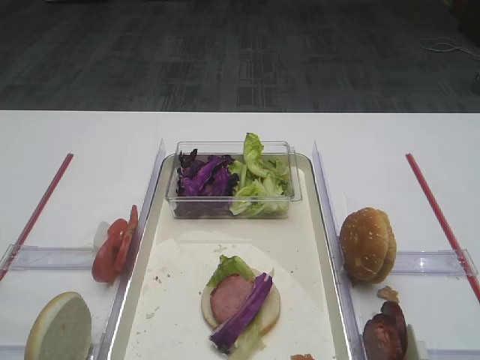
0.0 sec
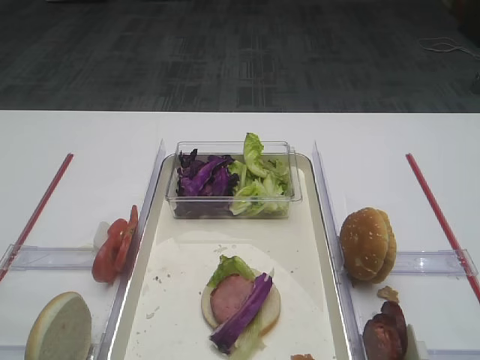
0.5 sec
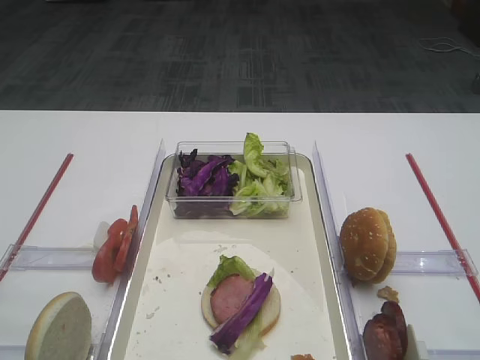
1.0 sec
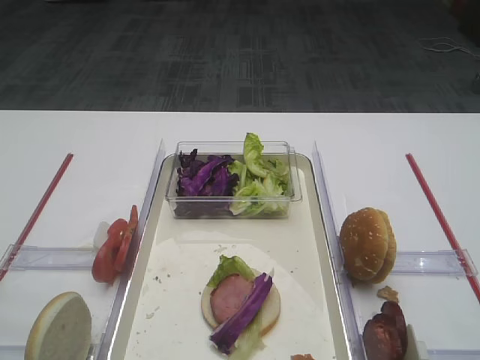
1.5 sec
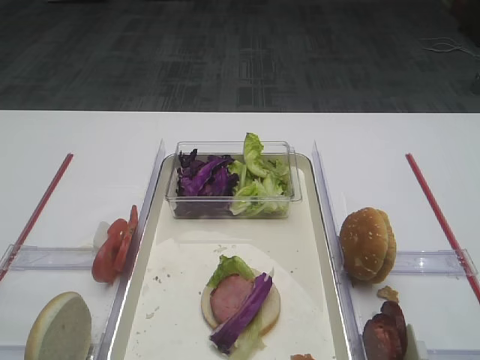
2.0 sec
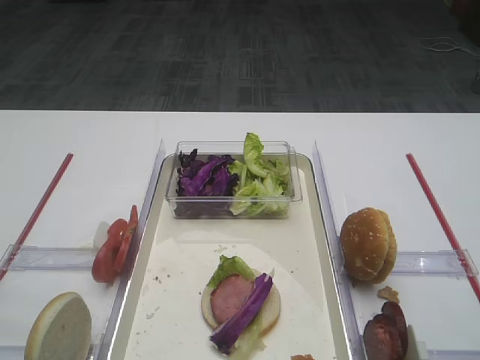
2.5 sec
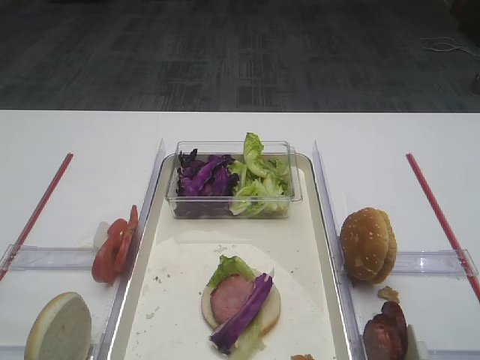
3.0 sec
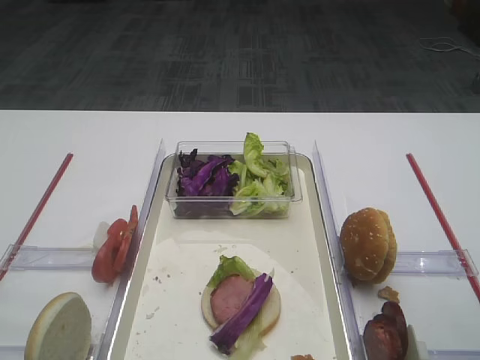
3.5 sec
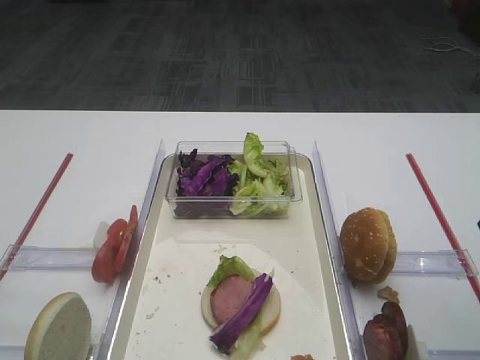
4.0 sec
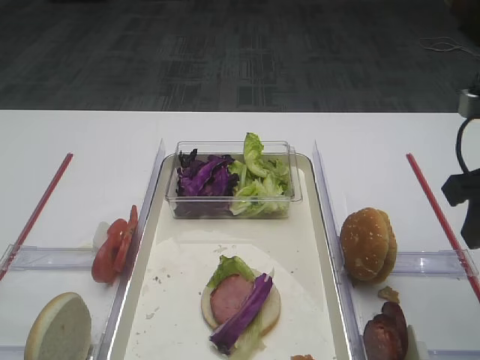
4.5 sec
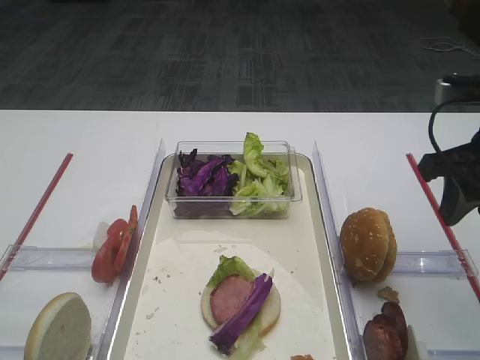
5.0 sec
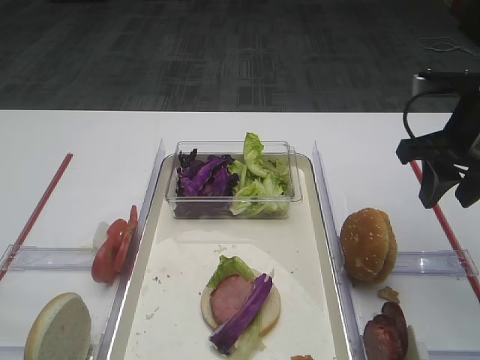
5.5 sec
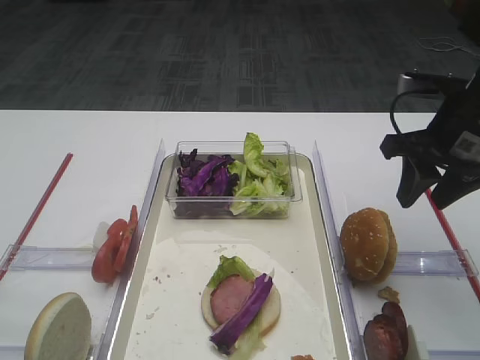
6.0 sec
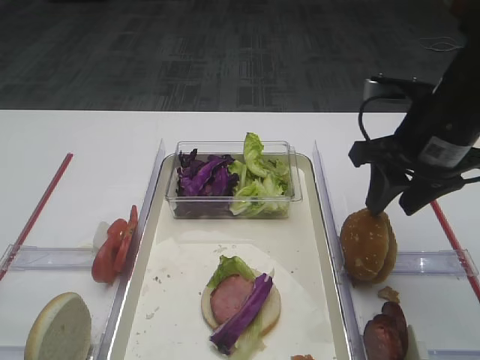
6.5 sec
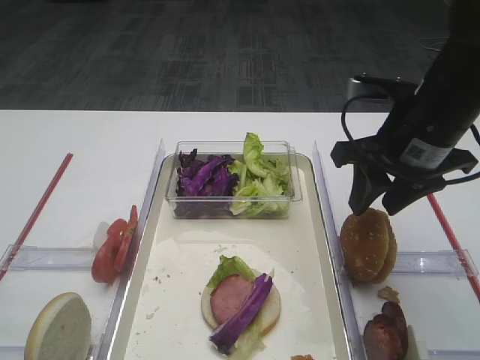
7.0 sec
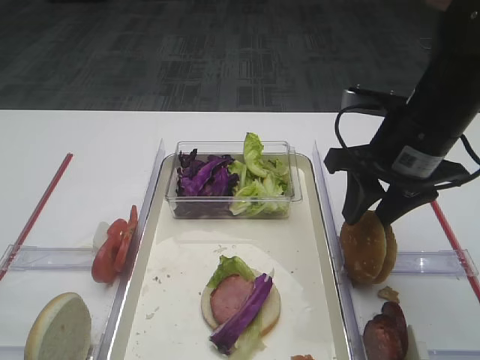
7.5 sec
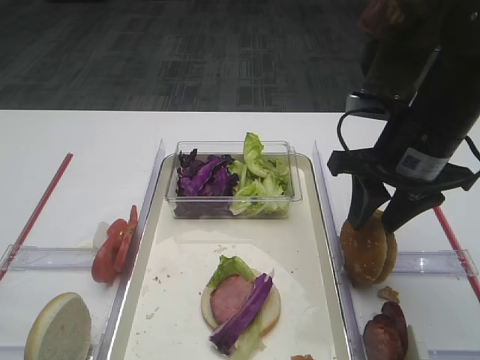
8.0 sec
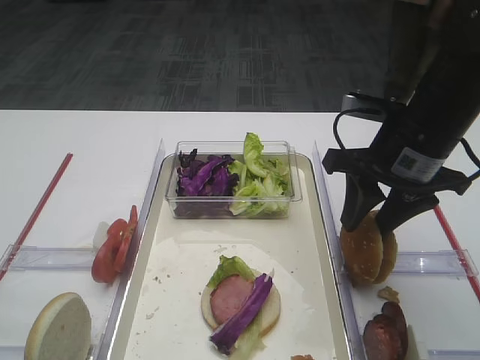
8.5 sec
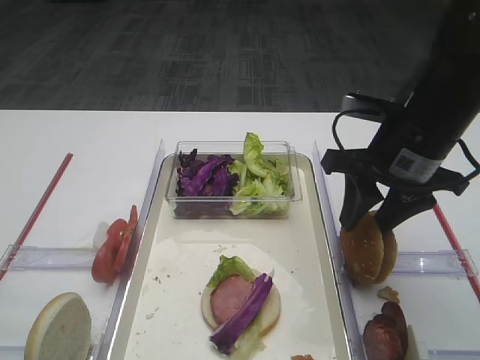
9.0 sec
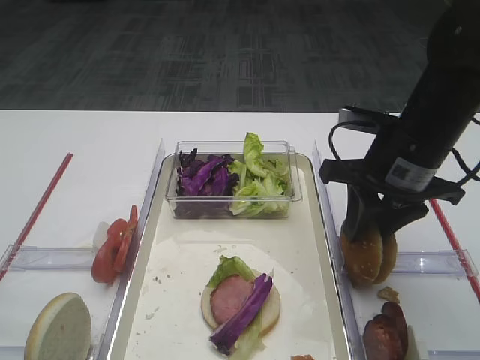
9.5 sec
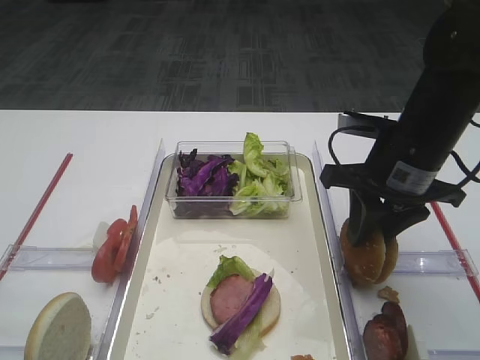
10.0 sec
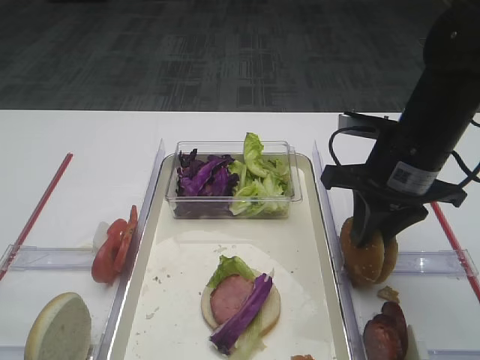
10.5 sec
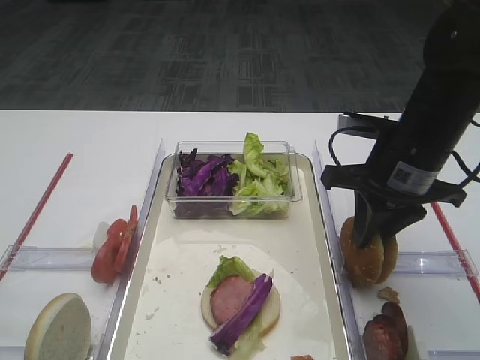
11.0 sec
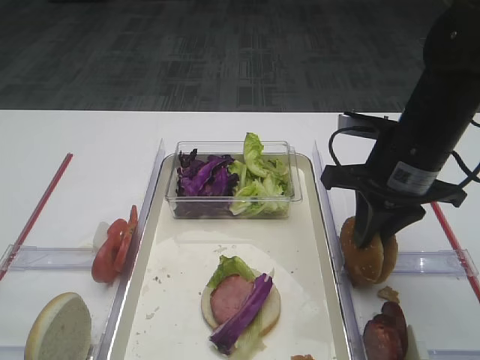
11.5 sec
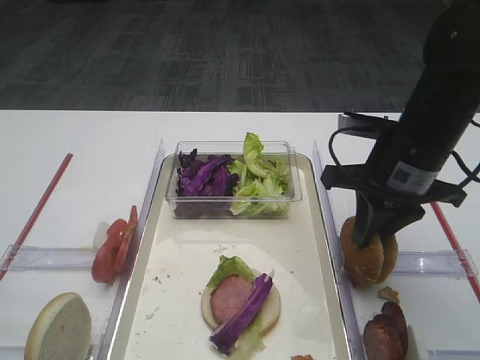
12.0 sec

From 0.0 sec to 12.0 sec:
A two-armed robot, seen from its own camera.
From 2.0 sec to 4.0 sec: The right gripper heads forward, covering approximately 15 cm.
From 4.0 sec to 6.0 sec: The right gripper heads forward, covering about 15 cm.
From 6.0 sec to 8.0 sec: The right gripper heads to the left, covering about 5 cm.
From 8.0 sec to 10.0 sec: The grippers move only a little.
From 10.0 sec to 12.0 sec: The right gripper closes.

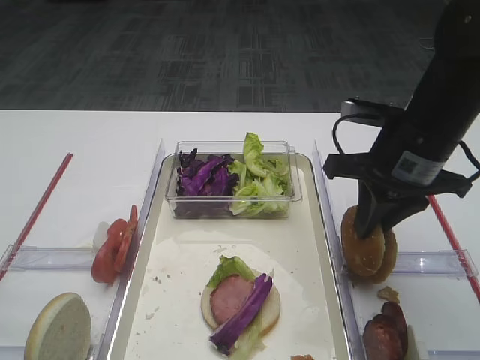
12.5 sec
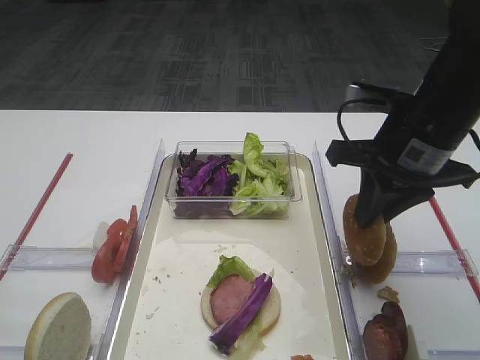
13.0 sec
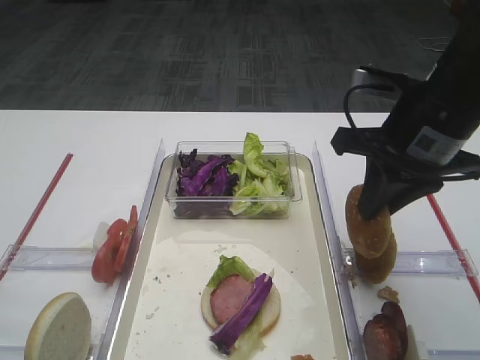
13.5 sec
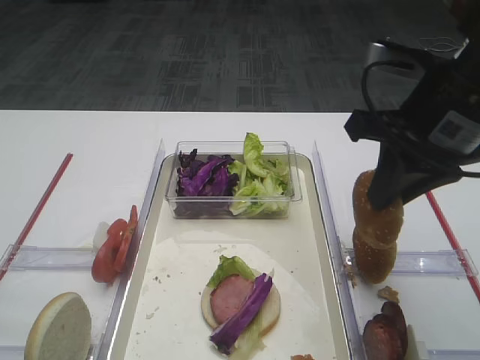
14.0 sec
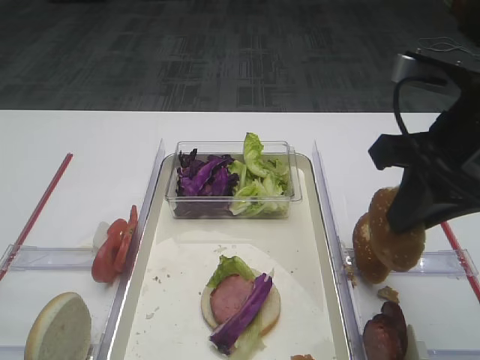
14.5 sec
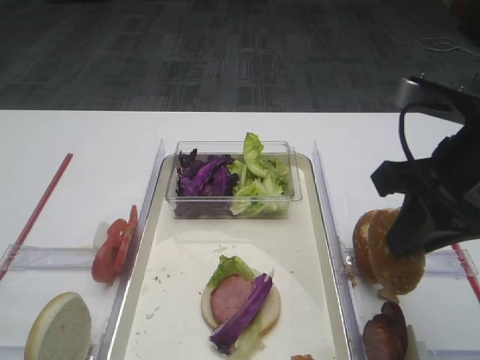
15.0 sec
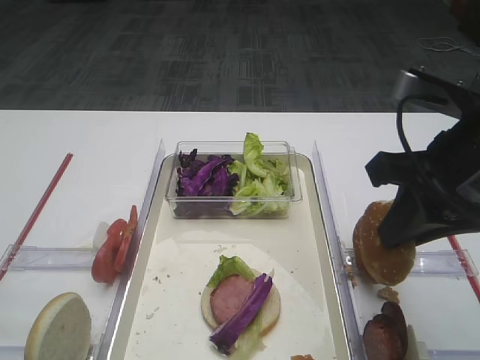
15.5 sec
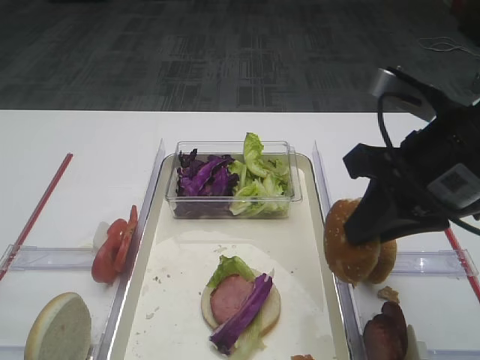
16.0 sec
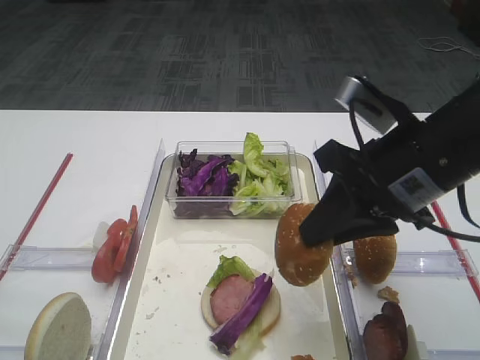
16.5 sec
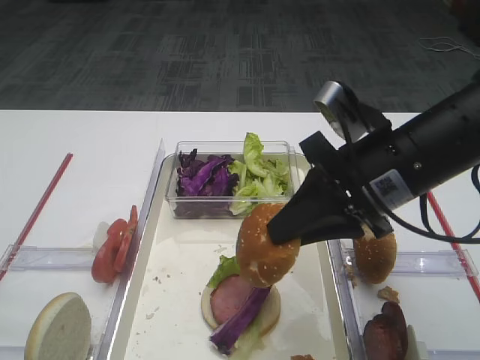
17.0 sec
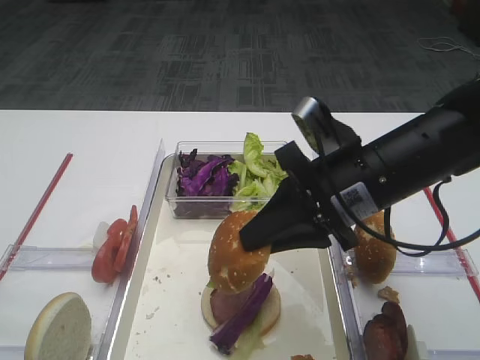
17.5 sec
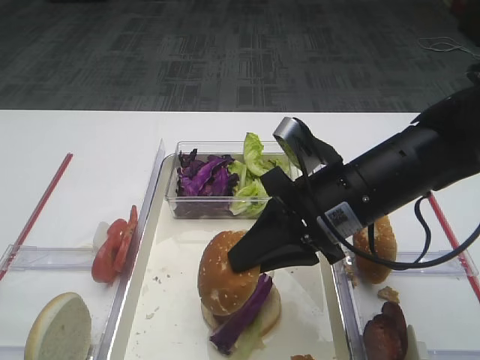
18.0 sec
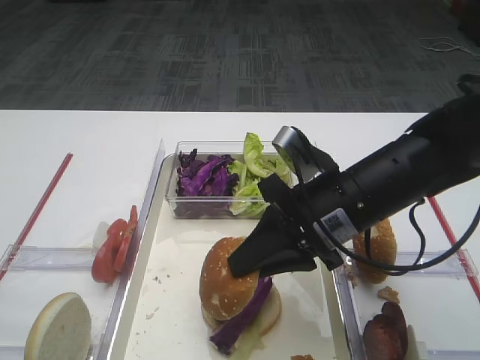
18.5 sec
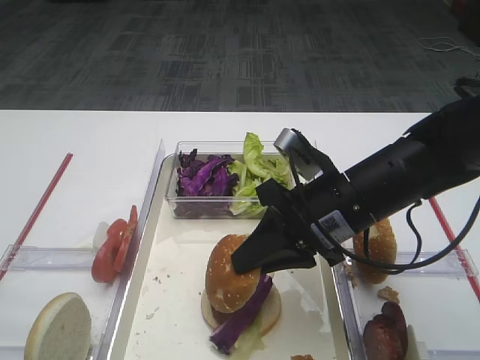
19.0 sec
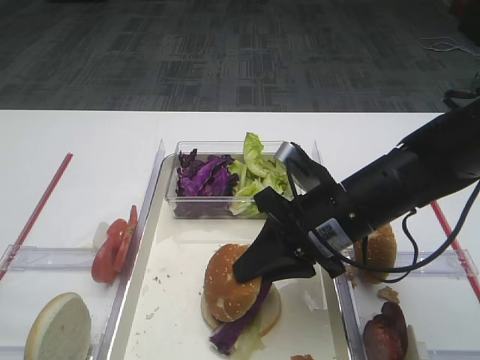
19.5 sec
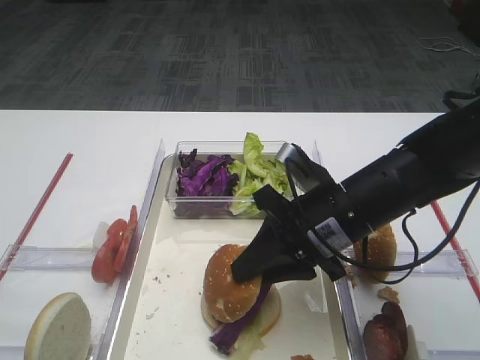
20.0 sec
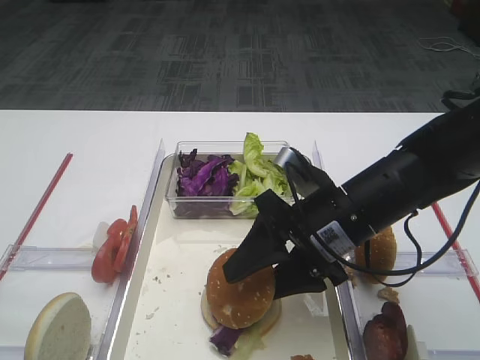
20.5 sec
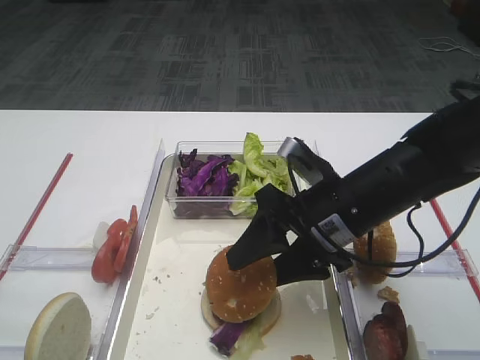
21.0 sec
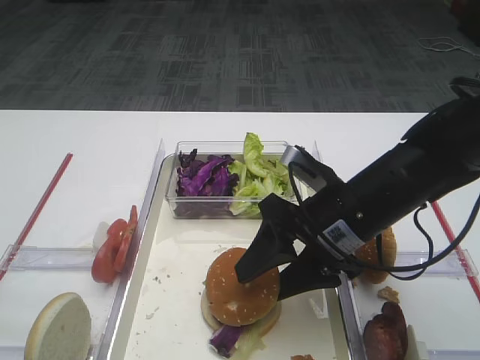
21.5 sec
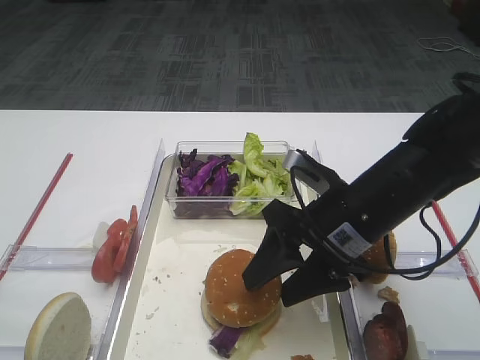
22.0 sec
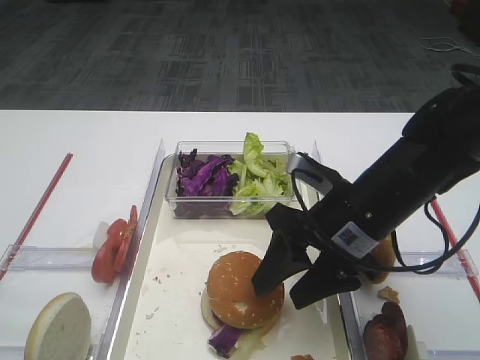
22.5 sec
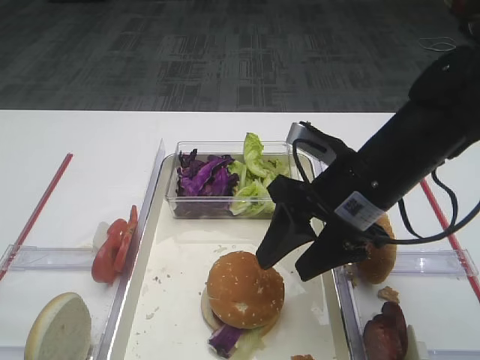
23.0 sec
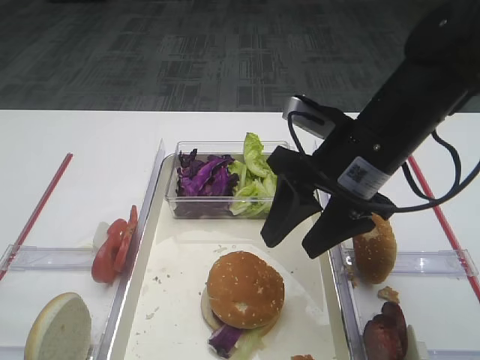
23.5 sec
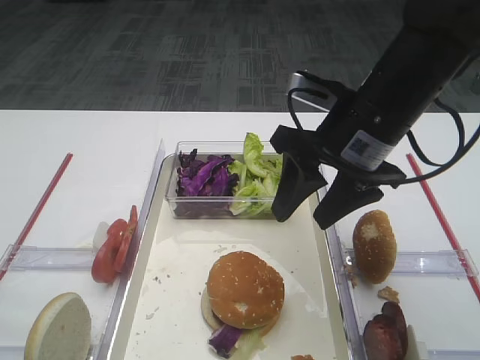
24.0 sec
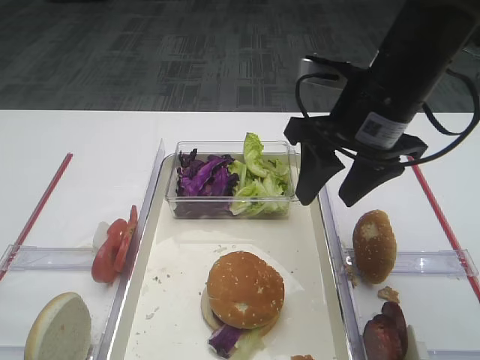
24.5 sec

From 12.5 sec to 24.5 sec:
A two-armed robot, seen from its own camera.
Step, from 14.0 sec to 23.5 sec: Place the hamburger lid on the purple cabbage with the right gripper.
From 12.5 sec to 14.5 sec: The right gripper shifts some 10 cm backward and upward.
From 14.5 sec to 16.5 sec: The right gripper changes place by roughly 5 cm.
From 16.5 sec to 18.5 sec: The right gripper is displaced downward and to the left by about 10 cm.
From 18.5 sec to 20.5 sec: The right gripper opens up.
From 20.5 sec to 22.5 sec: The grippers make only small movements.
From 22.5 sec to 24.5 sec: The right gripper goes roughly 10 cm upward.

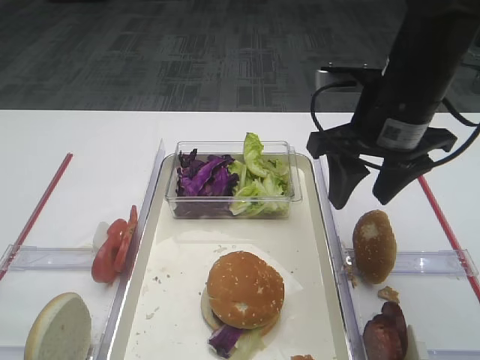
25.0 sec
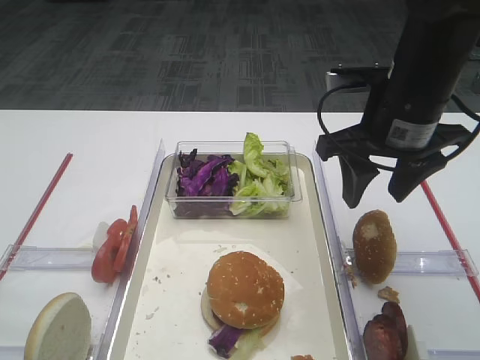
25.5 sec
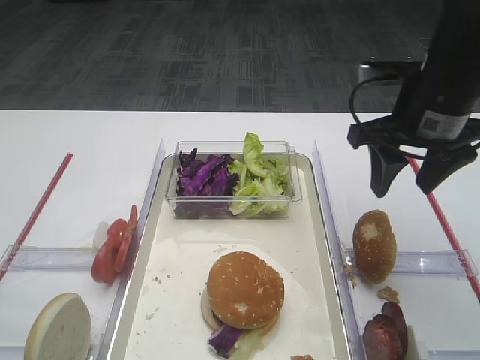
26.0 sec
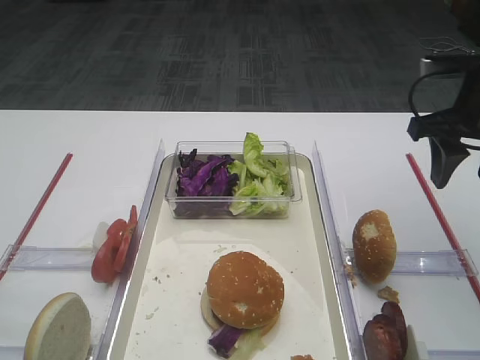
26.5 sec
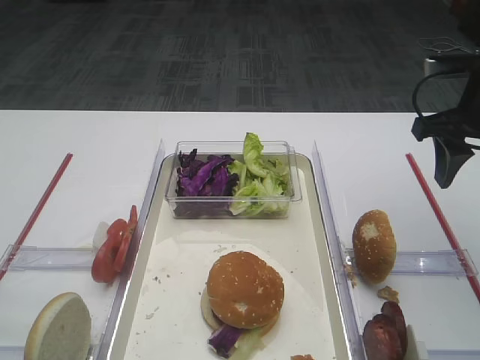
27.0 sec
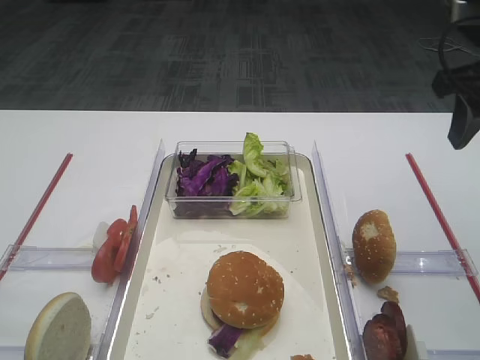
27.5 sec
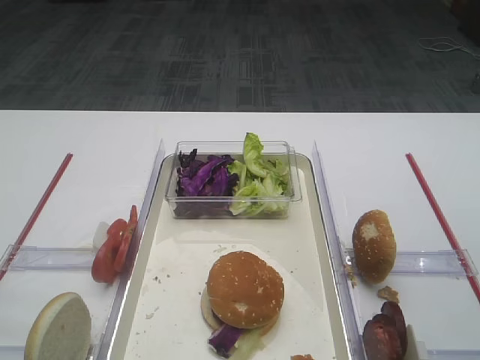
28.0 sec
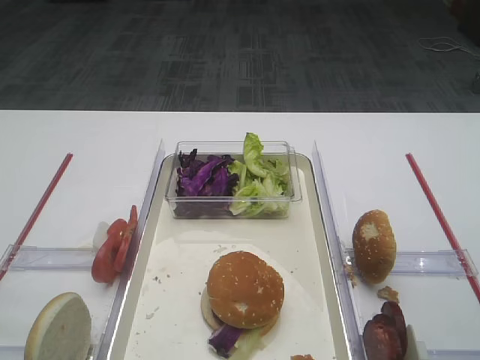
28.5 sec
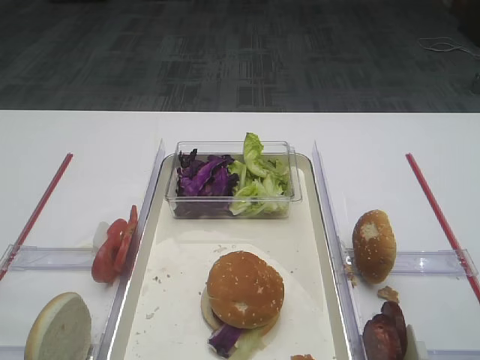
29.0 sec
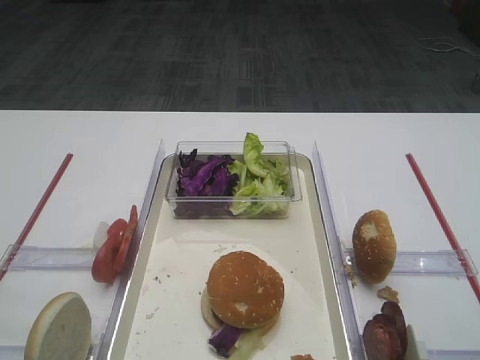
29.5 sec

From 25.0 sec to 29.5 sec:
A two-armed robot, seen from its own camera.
From 25.0 sec to 27.0 sec: The right gripper travels to the right by some 10 cm.
From 27.0 sec to 29.5 sec: The right gripper moves backward, about 25 cm.
